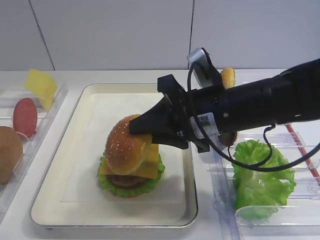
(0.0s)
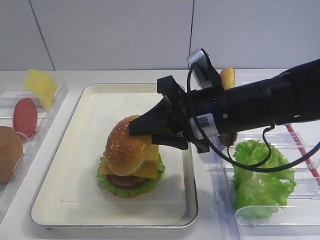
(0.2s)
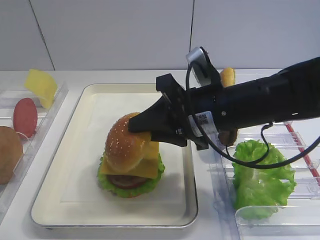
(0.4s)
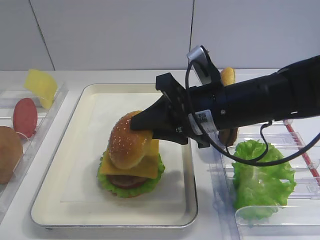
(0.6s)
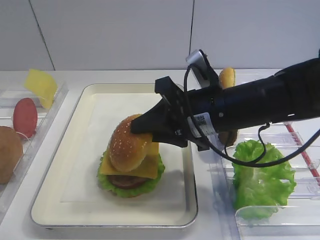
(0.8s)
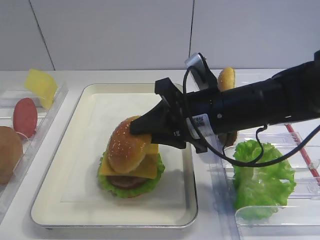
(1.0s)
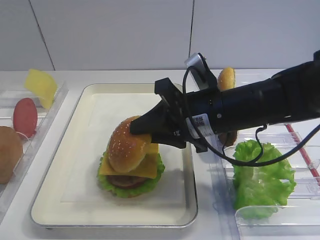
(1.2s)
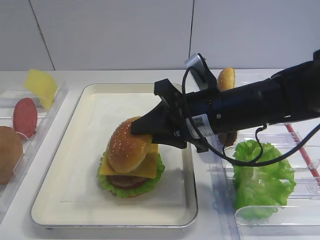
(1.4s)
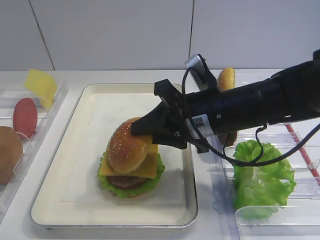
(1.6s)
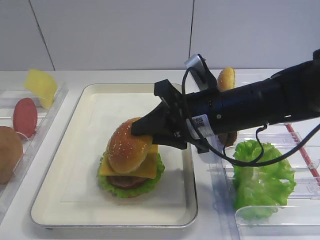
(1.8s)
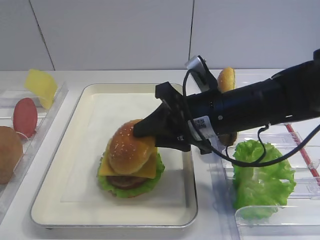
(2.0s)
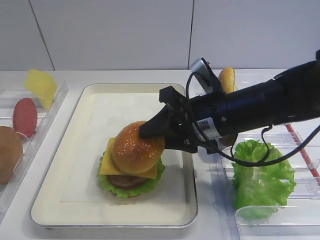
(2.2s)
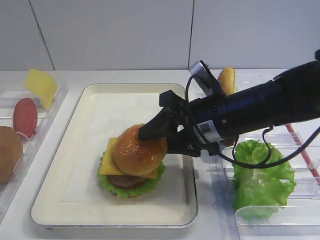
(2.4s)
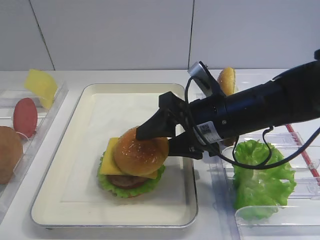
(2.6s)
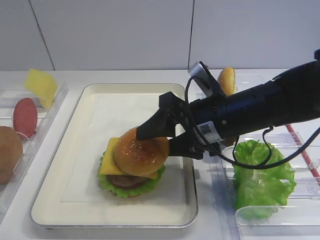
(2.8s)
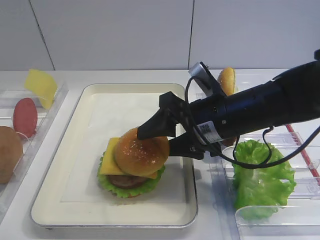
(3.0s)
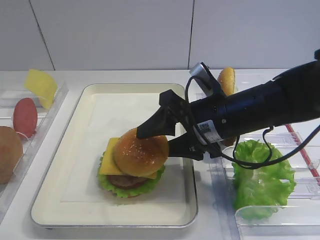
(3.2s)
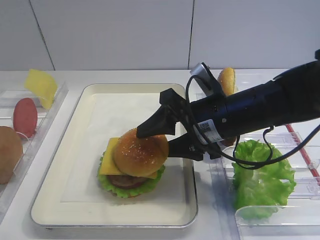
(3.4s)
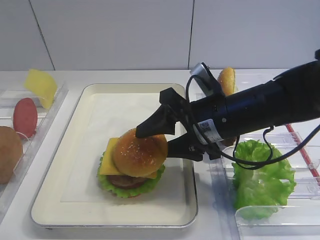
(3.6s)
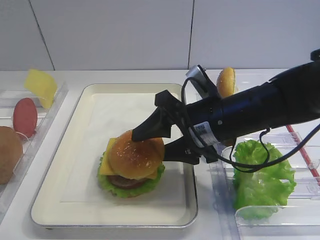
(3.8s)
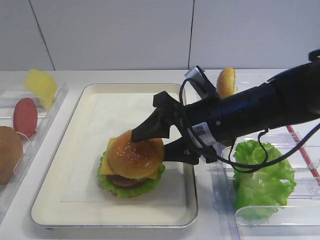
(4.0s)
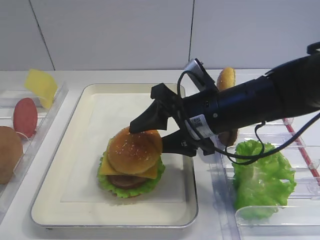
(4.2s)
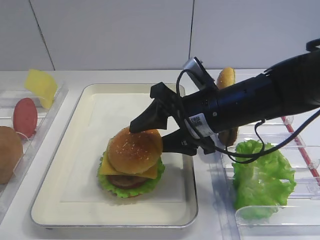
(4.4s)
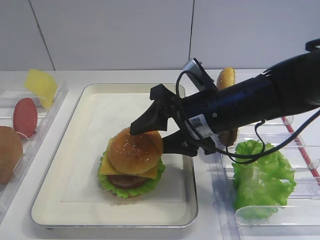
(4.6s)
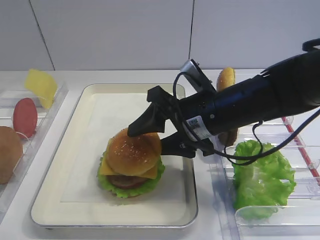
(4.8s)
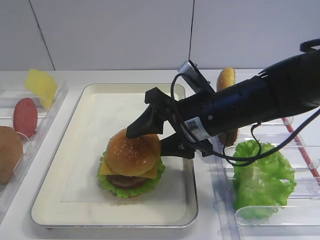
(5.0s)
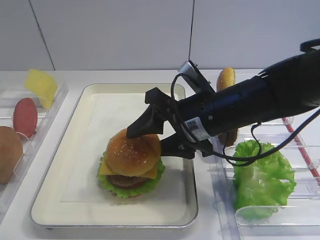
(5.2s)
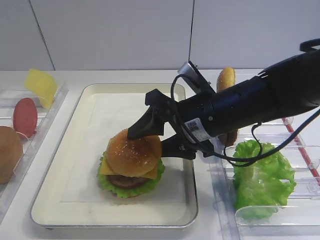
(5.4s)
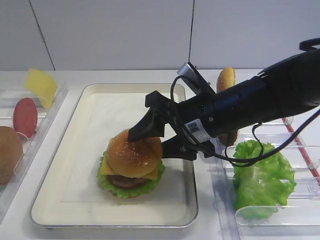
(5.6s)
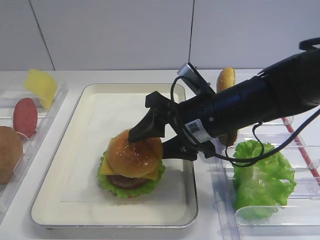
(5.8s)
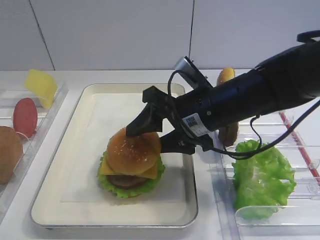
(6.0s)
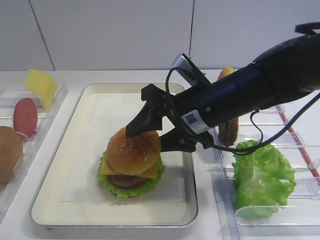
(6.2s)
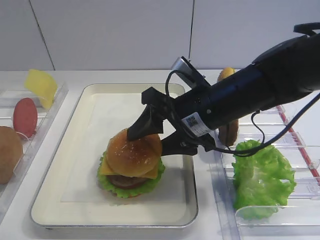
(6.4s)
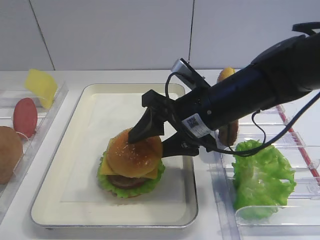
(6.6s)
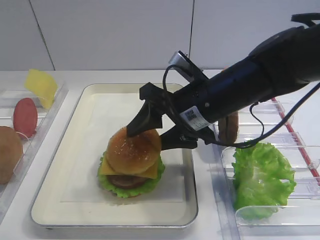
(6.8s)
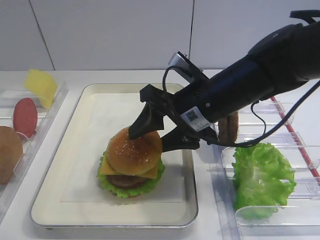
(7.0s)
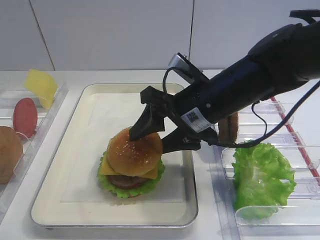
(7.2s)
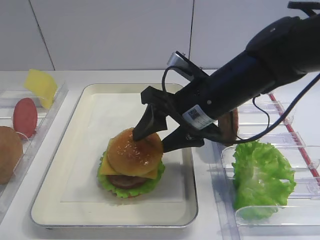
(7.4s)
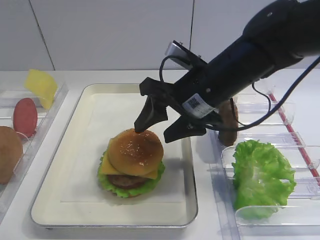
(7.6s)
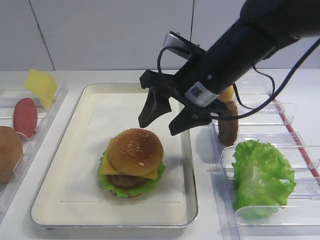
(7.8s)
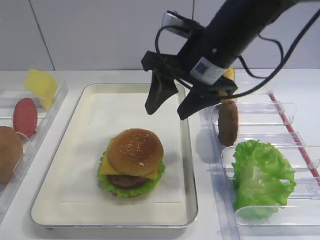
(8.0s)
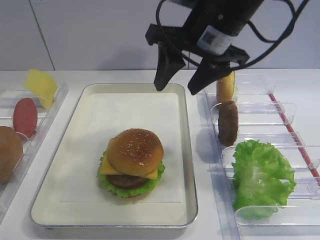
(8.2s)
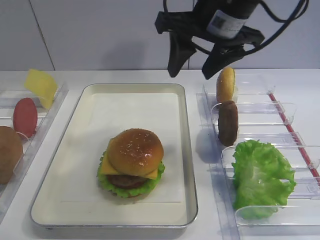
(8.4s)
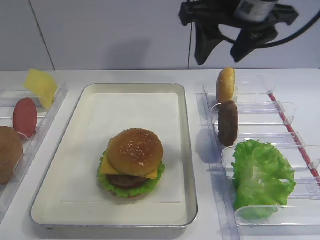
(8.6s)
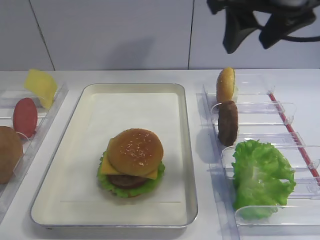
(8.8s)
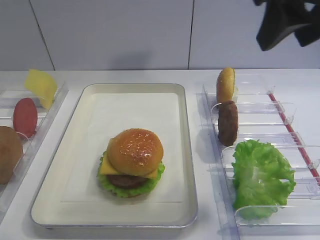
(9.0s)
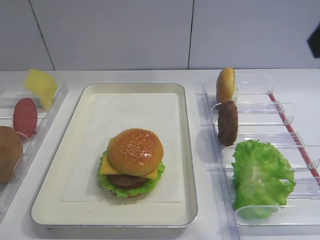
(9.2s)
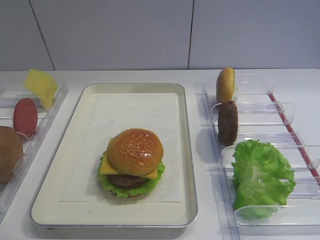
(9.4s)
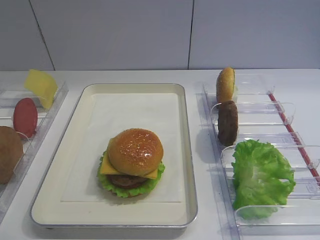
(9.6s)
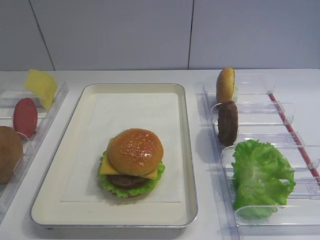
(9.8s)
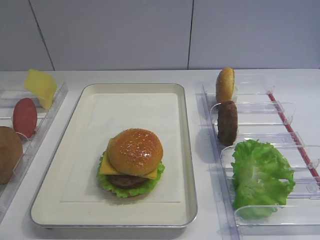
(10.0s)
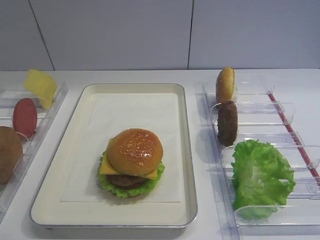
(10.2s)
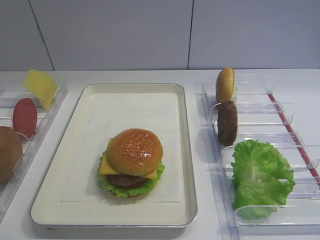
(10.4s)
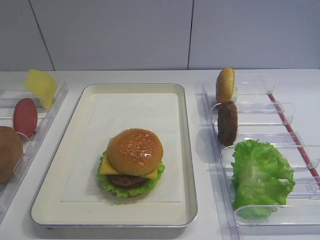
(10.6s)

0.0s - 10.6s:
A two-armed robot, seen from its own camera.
Step, 0.0s - 7.8s: Place the hamburger lid on the cheese slice with the right gripper.
0.0s - 1.6s: The grippers move only a little.
1.6s - 3.0s: The right gripper opens up.
3.0s - 4.6s: The grippers move only a little.
4.6s - 6.0s: The two grippers keep their place.
7.6s - 9.0s: The right gripper shifts about 20 cm upward and to the right.
9.0s - 10.6s: The right gripper moves backward, downward and to the right, roughly 30 cm.

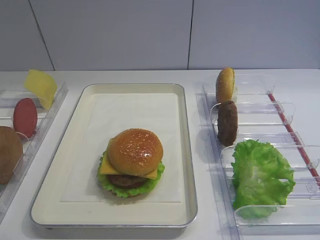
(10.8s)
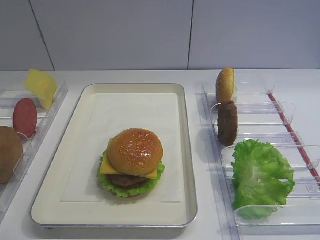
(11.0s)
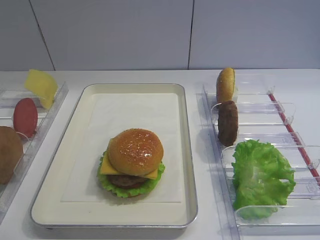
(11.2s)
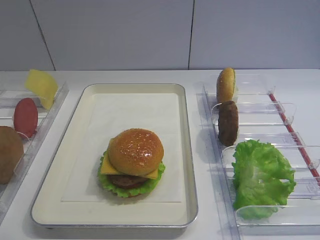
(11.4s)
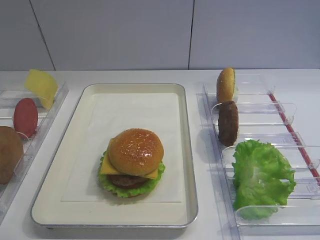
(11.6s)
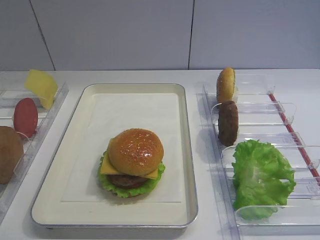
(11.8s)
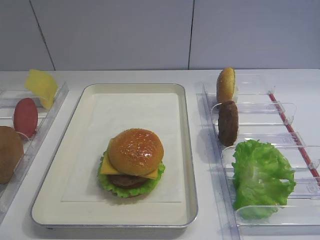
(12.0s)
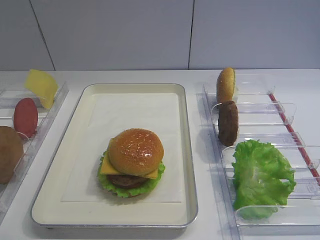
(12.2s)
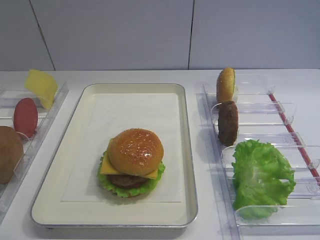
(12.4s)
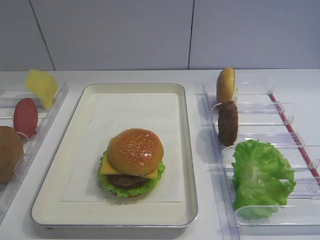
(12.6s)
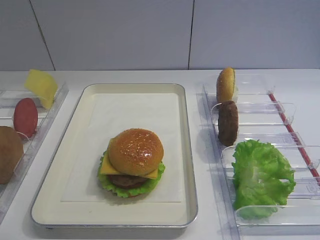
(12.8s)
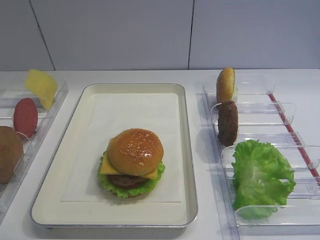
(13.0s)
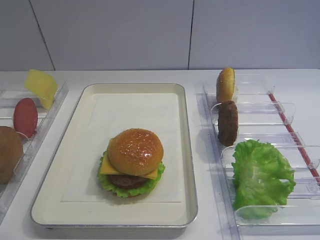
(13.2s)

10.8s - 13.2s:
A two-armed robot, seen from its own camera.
12.0s - 13.2s: Neither gripper changes place.

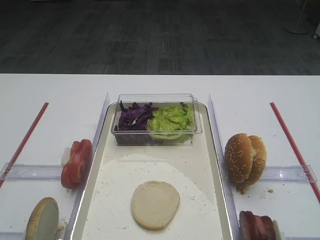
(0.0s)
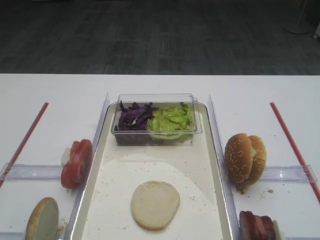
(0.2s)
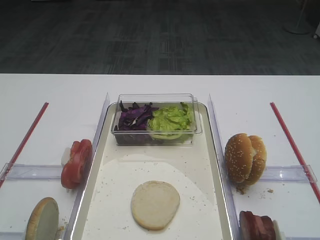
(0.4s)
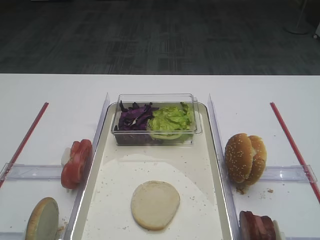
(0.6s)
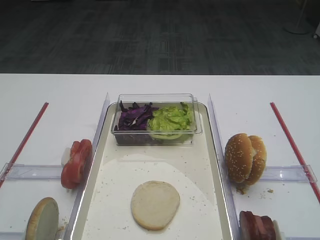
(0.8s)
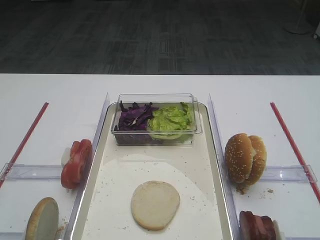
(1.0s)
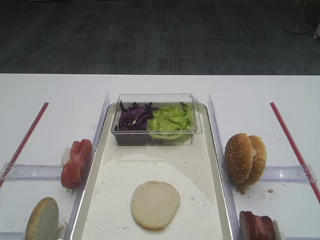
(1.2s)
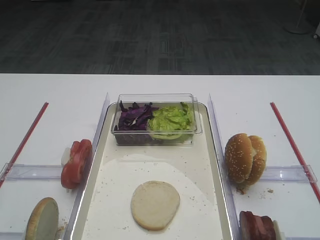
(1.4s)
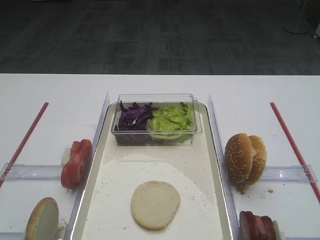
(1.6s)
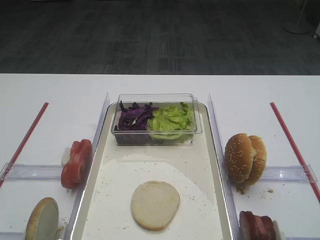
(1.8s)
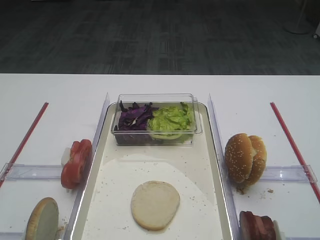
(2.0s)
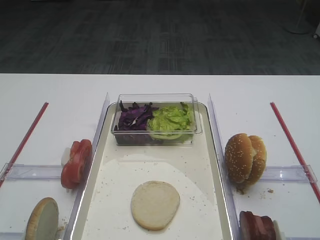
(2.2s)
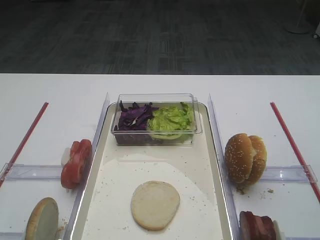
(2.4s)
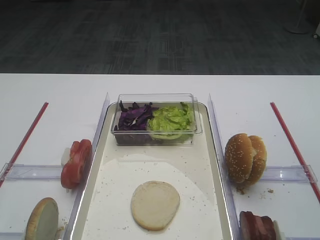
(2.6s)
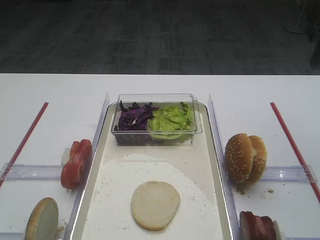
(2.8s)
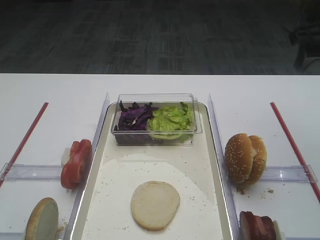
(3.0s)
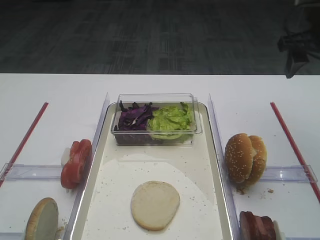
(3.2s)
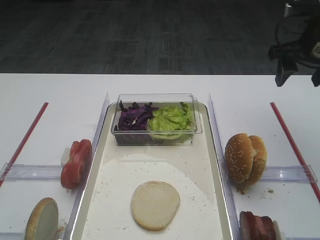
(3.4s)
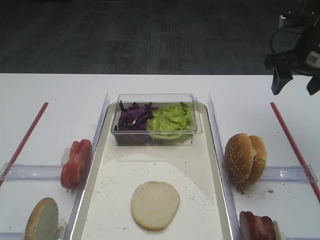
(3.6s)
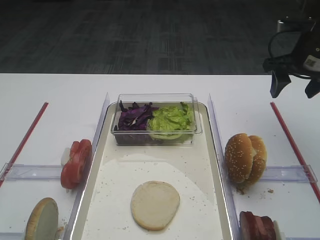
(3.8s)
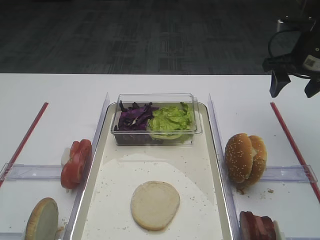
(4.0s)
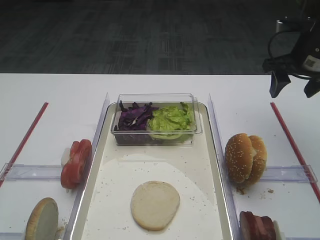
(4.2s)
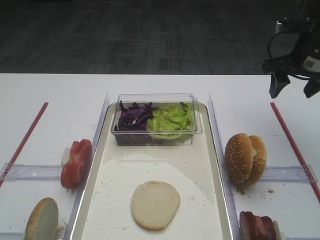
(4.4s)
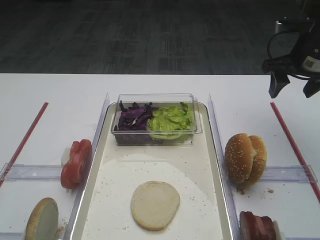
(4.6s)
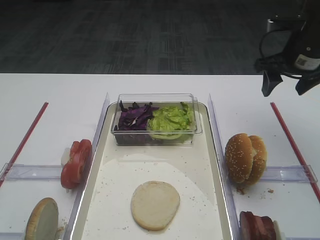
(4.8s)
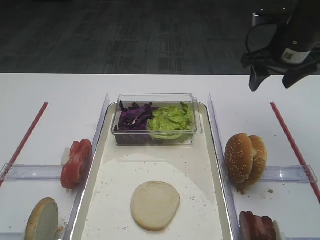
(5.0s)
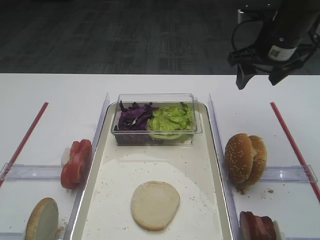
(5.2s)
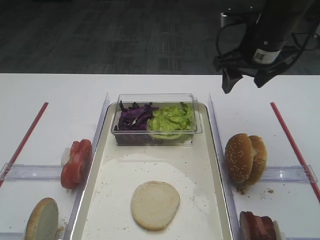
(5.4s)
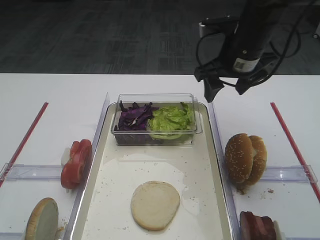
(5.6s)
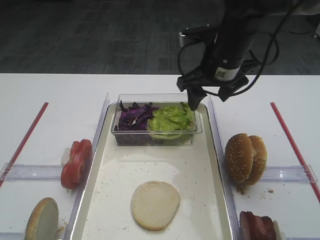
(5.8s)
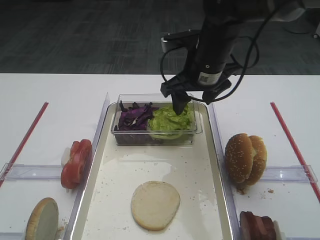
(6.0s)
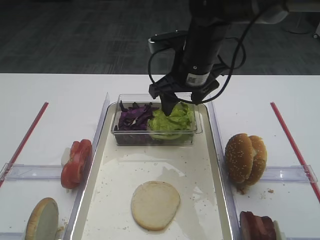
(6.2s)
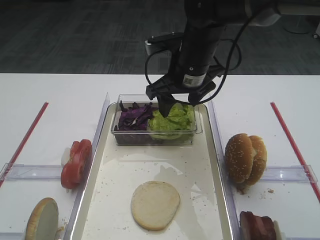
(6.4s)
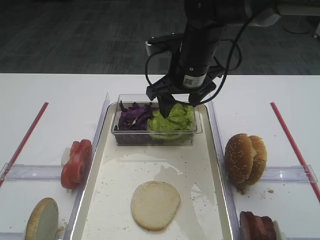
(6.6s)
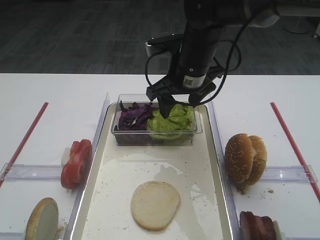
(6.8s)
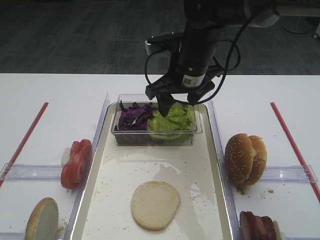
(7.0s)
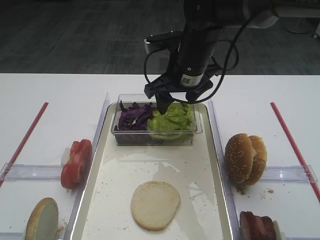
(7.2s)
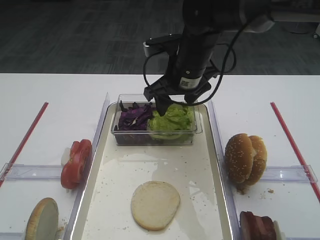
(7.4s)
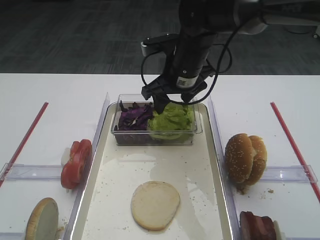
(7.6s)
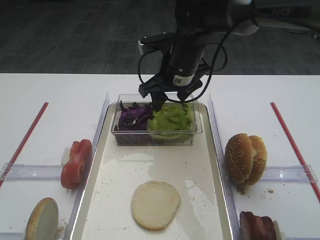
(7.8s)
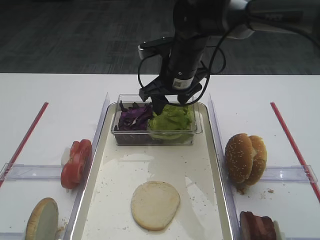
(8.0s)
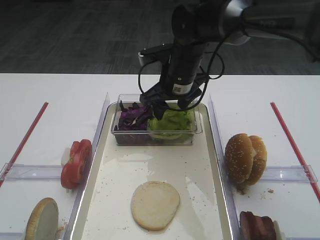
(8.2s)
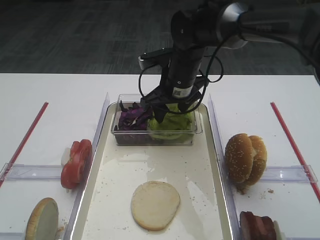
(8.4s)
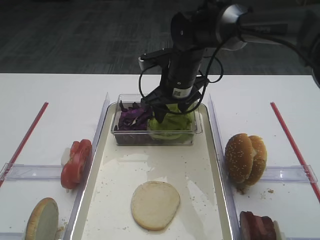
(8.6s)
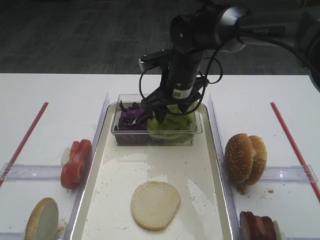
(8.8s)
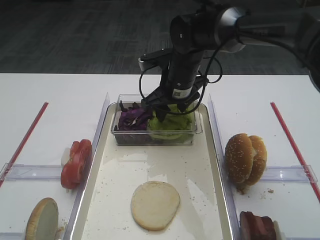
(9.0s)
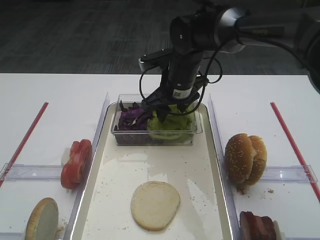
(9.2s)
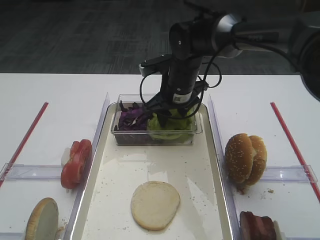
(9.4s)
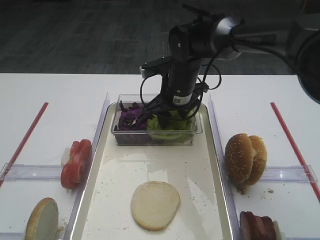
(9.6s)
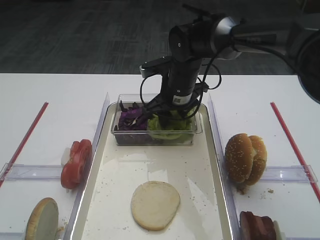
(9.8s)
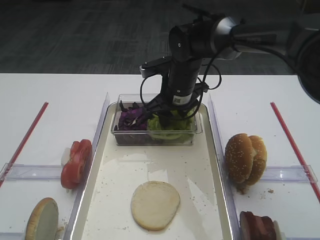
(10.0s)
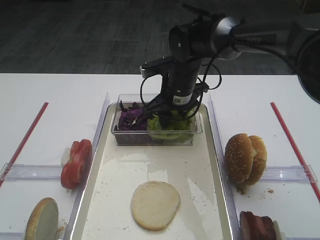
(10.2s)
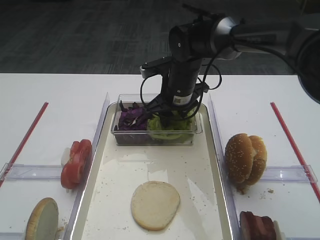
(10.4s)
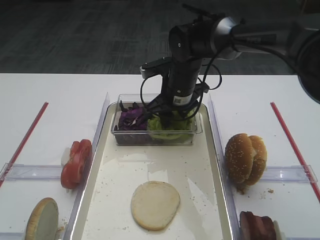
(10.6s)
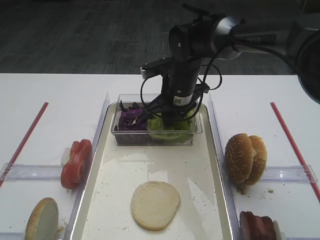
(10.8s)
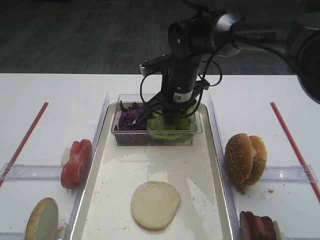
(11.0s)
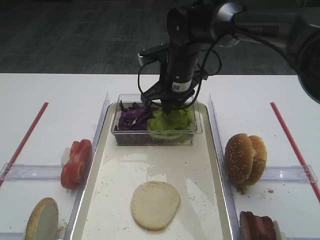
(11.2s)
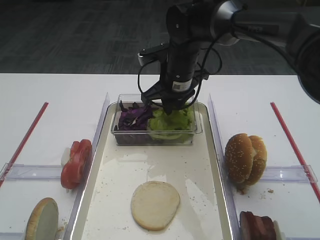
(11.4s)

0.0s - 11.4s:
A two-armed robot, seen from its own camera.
2.8s - 4.2s: The right gripper shifts about 15 cm forward and downward.
4.2s - 5.6s: The right gripper heads to the left, covering some 15 cm.
5.6s - 7.2s: The right gripper goes roughly 10 cm to the left.
7.2s - 8.6s: The right gripper changes place by approximately 5 cm.
8.6s - 11.4s: The grippers make only small movements.
